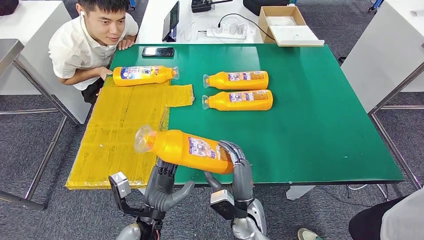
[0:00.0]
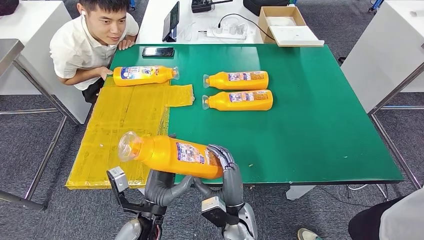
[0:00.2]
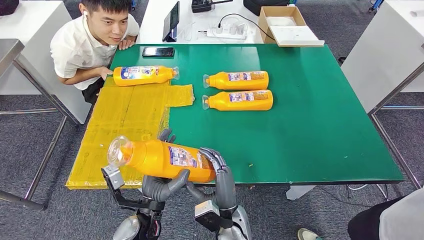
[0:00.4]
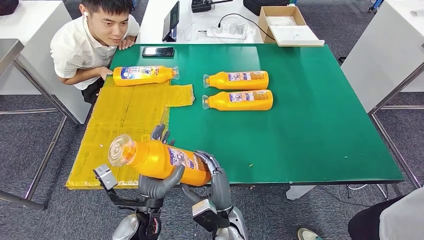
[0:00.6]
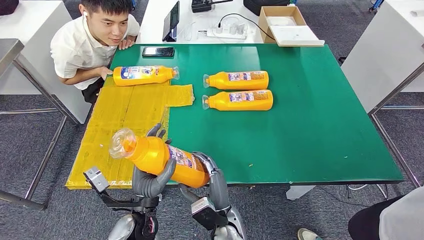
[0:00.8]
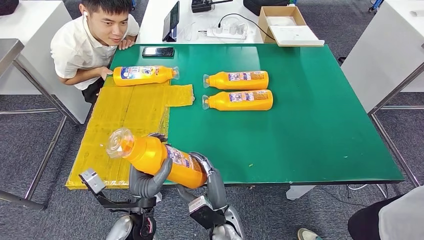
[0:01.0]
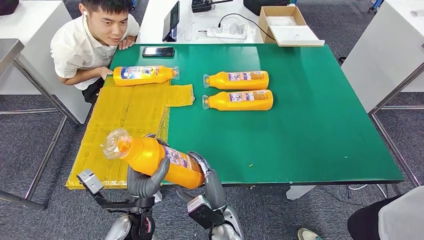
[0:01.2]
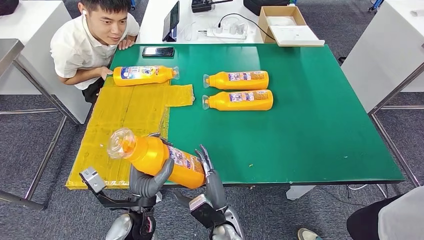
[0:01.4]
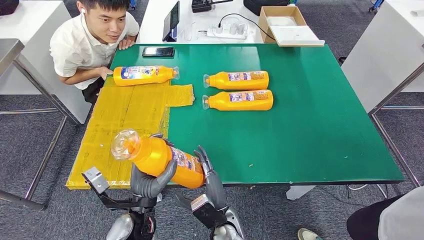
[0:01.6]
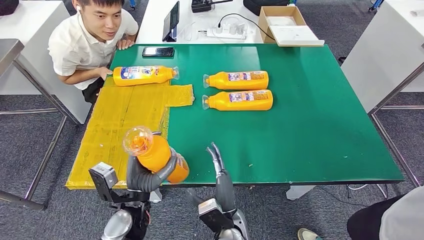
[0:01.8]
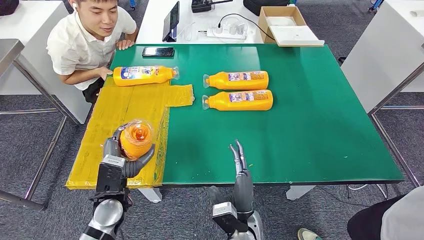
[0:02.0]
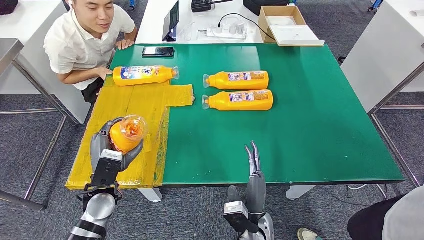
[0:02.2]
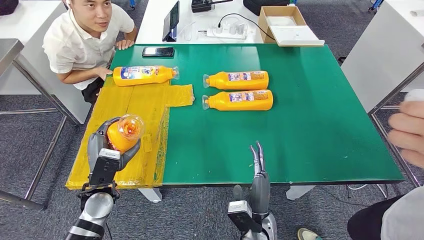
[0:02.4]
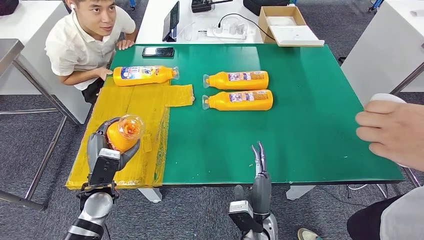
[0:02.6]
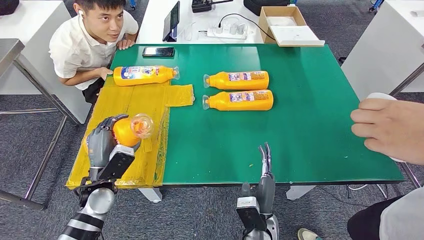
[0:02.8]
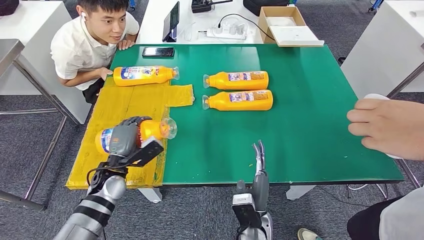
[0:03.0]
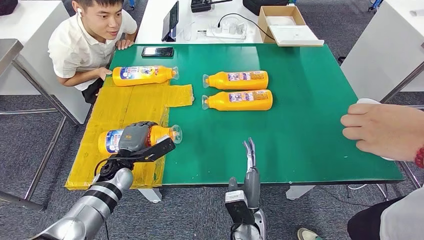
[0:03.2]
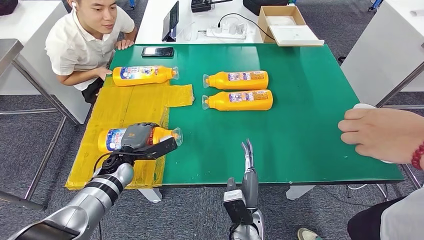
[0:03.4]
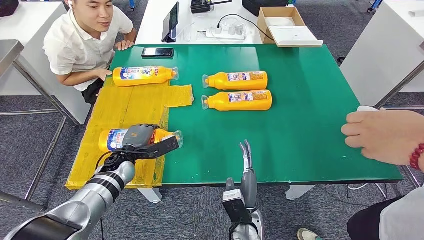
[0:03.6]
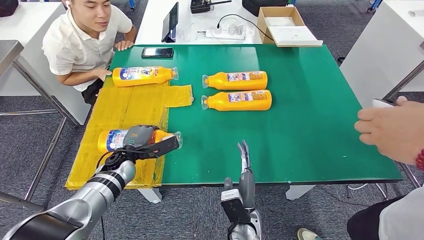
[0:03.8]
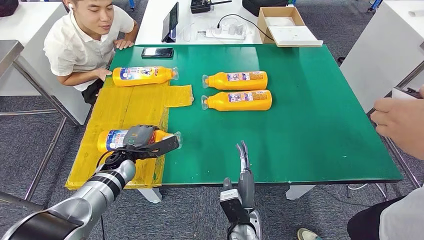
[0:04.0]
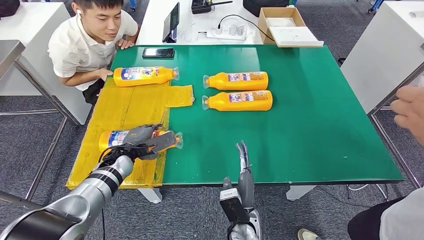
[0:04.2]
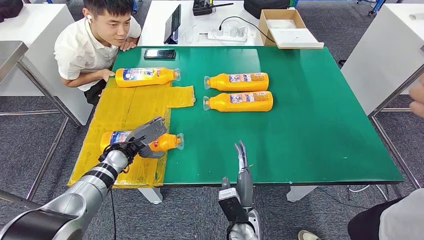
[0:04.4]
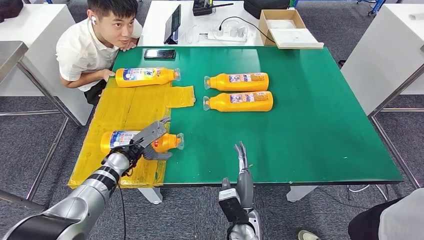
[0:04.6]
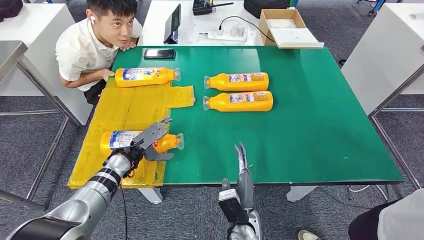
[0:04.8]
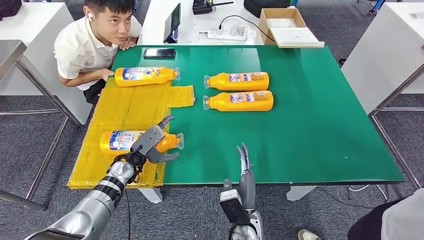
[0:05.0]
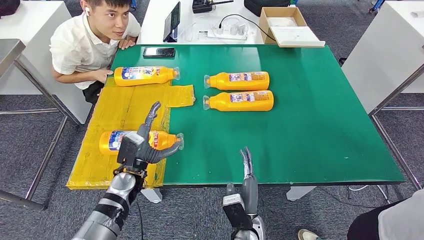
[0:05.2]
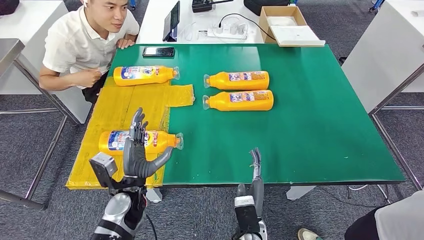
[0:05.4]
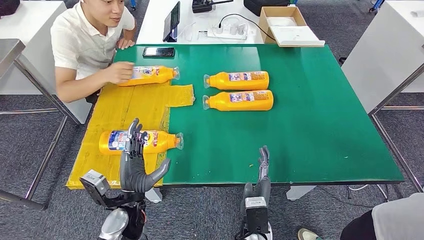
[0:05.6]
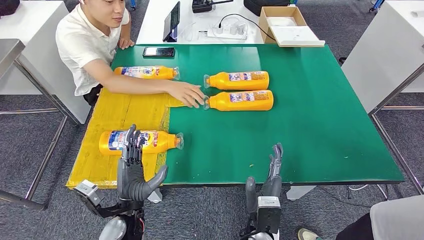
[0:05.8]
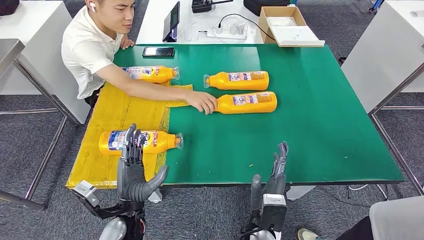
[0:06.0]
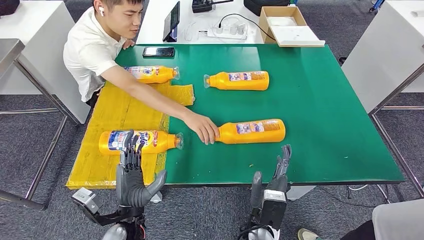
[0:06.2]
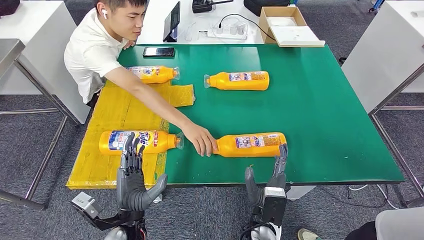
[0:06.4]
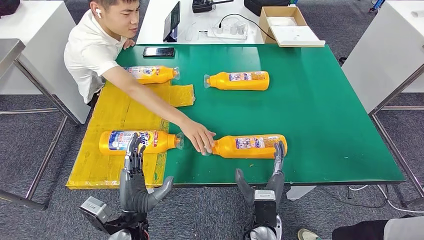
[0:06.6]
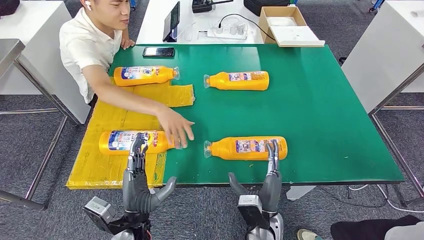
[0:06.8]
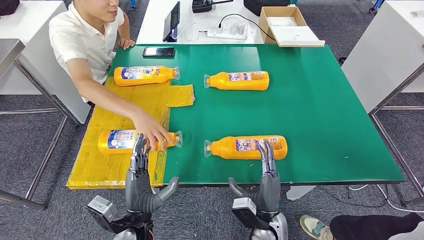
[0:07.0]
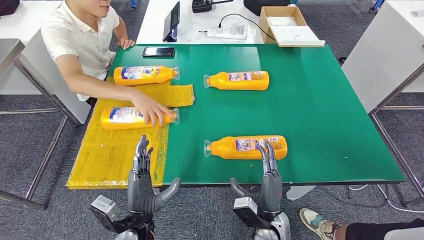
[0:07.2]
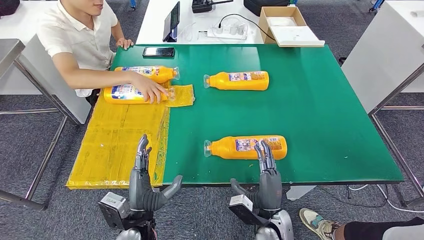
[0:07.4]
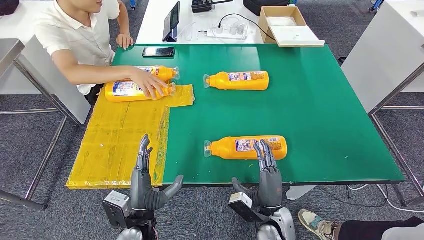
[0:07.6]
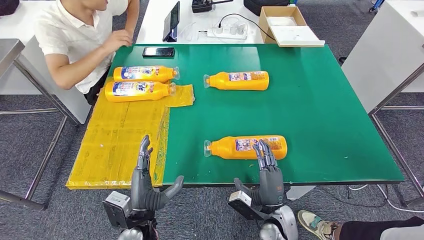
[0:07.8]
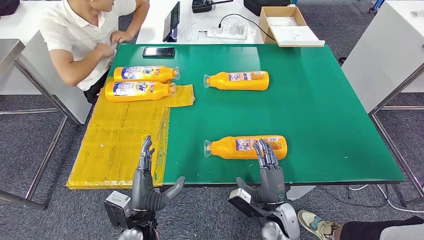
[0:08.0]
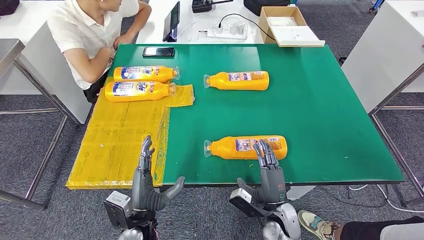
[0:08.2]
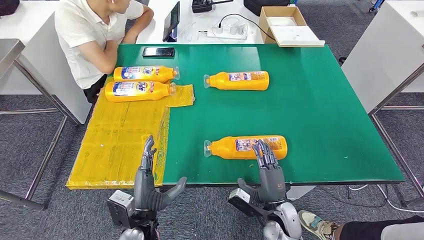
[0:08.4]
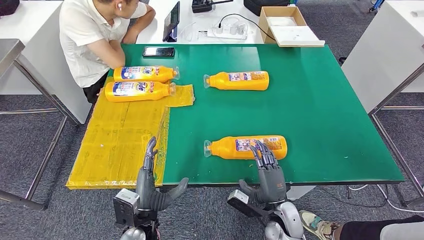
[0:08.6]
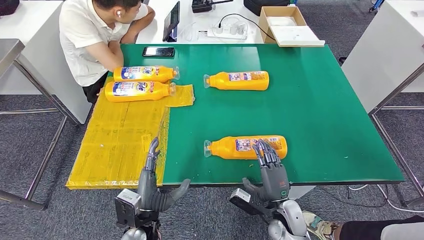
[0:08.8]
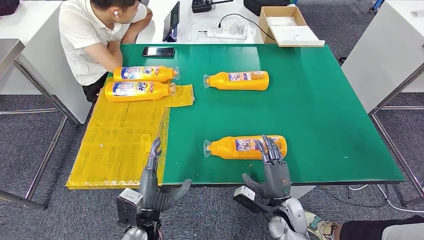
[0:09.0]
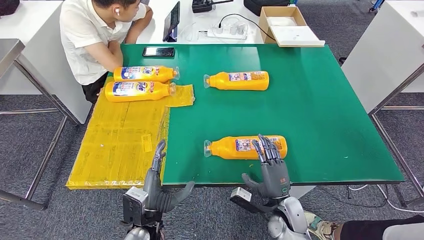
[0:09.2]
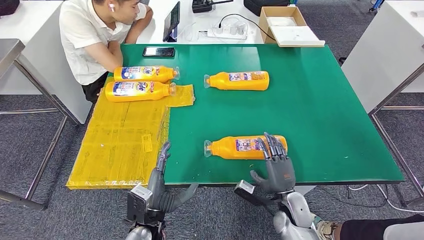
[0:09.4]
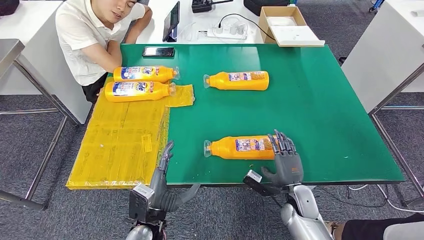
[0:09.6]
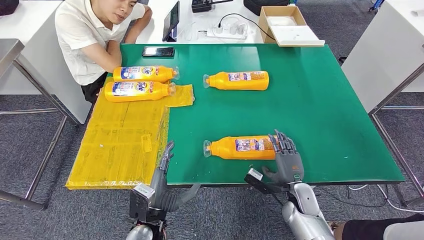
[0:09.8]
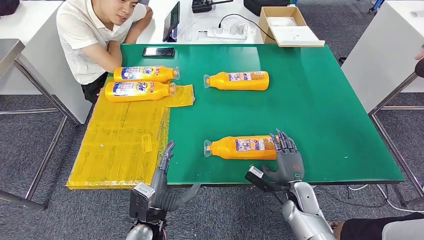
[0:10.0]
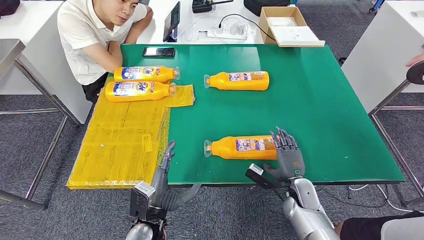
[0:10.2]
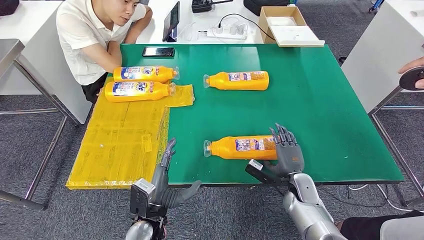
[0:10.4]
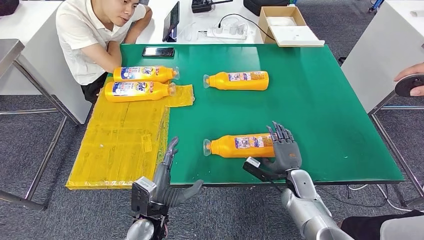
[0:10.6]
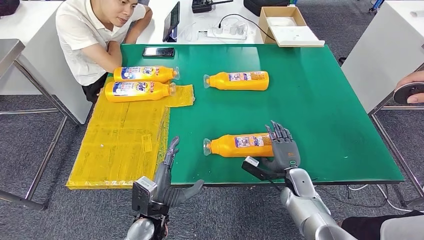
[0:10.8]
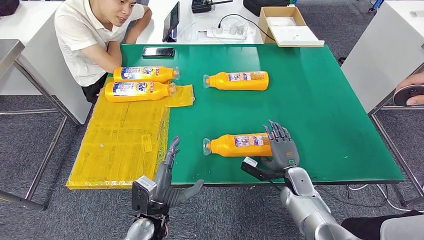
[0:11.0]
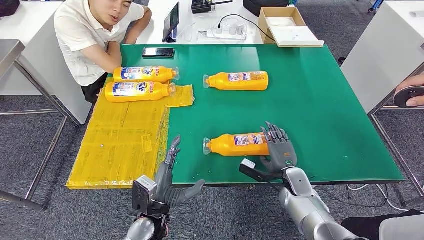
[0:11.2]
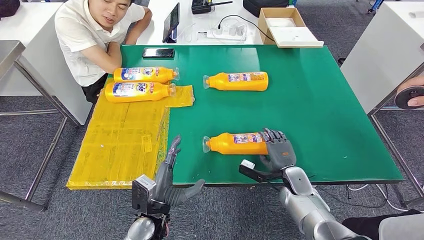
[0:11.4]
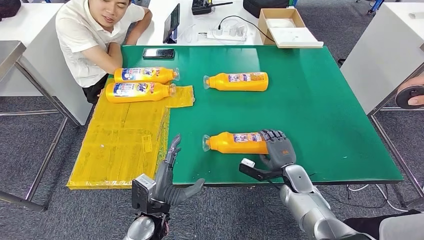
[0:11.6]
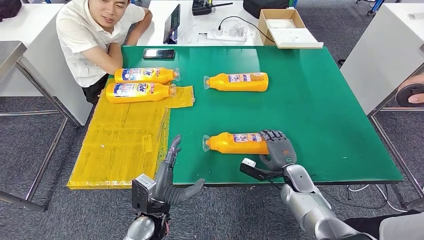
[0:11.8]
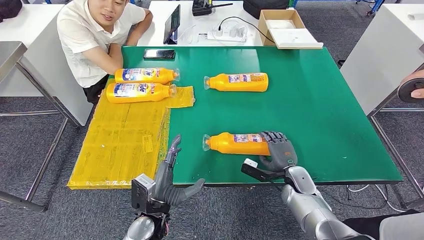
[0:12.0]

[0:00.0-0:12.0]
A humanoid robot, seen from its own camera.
Step, 0:00.0 to 0:05.0: Flip the fast-moving consumer goods bottle to the front side.
0:00.0 to 0:01.6: The right hand heads to the left, covering about 5 cm.
0:01.6 to 0:03.0: The left hand shifts about 15 cm forward and to the left. Meanwhile the right hand moves to the right, about 10 cm.
0:07.6 to 0:09.0: The hands make only small movements.
0:09.0 to 0:10.4: The right hand is displaced forward and to the right by approximately 10 cm.
0:10.4 to 0:12.0: There are only small adjustments of the hands.

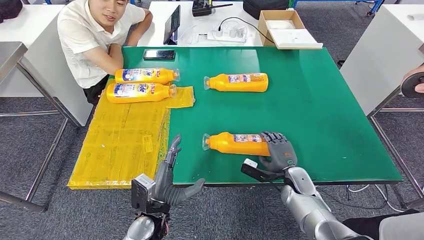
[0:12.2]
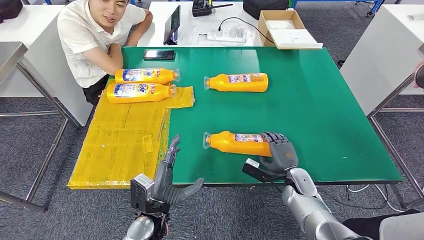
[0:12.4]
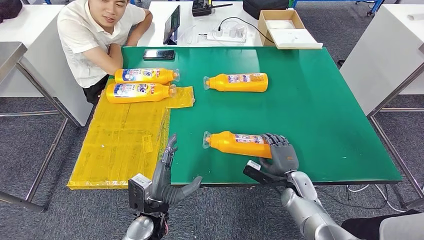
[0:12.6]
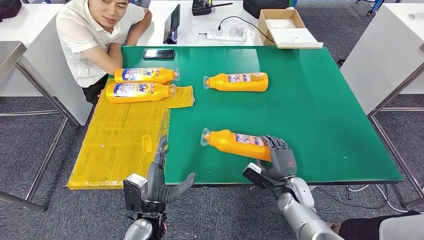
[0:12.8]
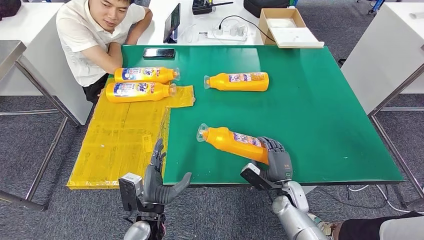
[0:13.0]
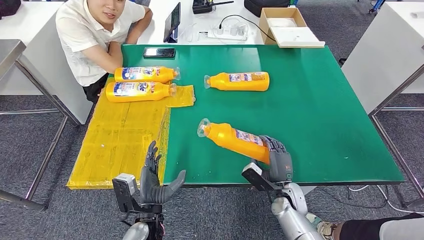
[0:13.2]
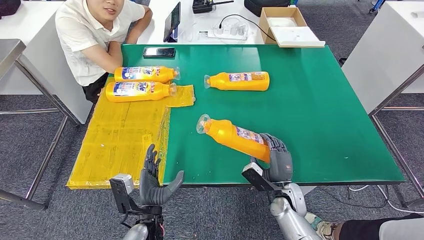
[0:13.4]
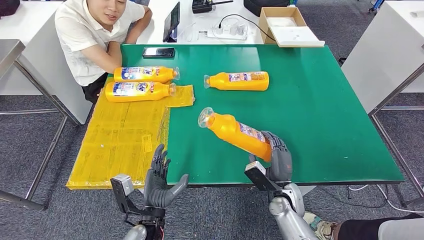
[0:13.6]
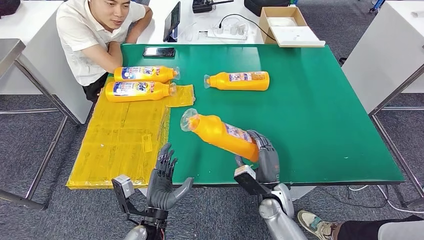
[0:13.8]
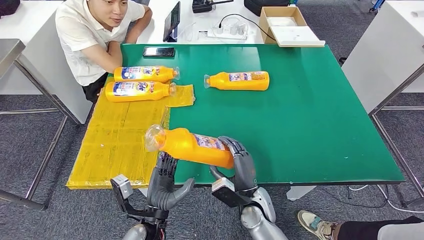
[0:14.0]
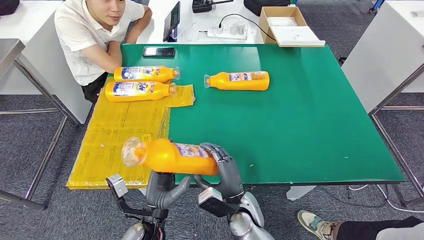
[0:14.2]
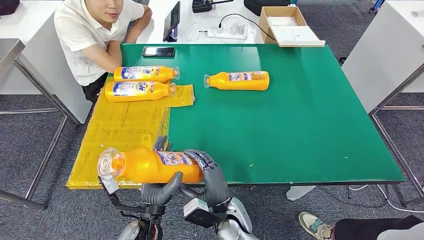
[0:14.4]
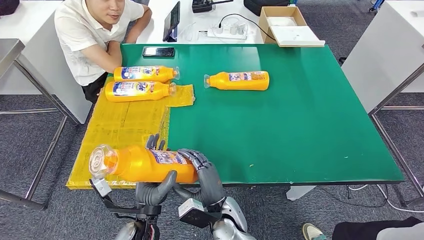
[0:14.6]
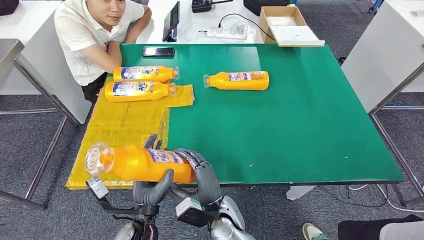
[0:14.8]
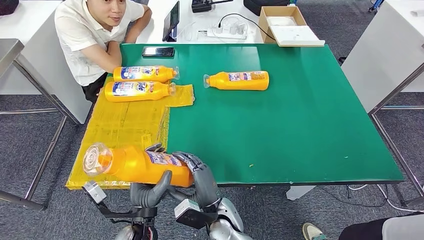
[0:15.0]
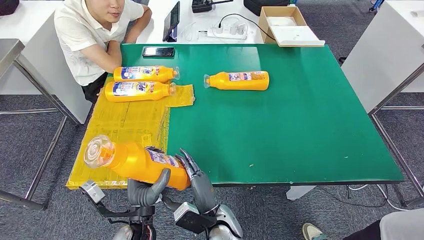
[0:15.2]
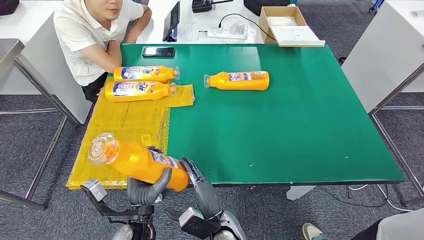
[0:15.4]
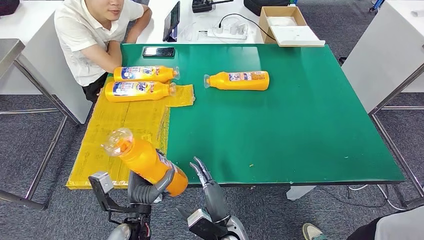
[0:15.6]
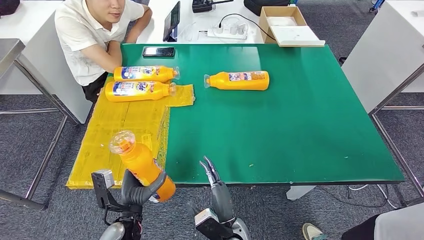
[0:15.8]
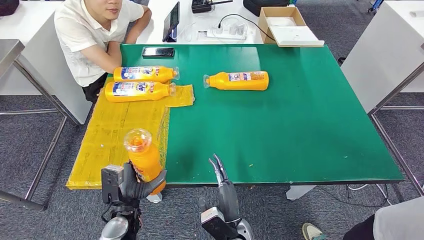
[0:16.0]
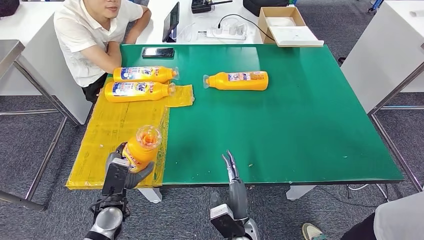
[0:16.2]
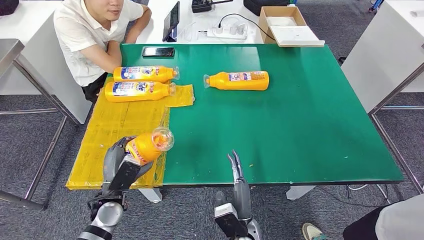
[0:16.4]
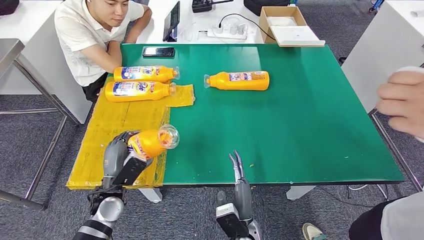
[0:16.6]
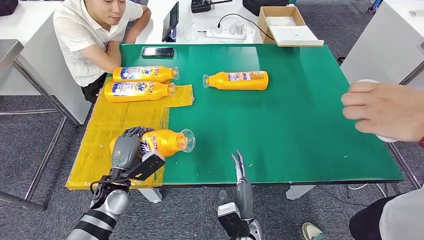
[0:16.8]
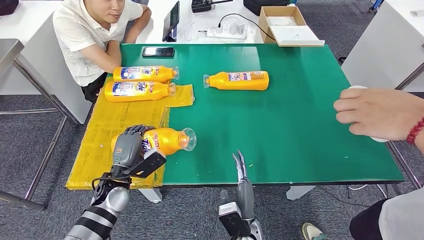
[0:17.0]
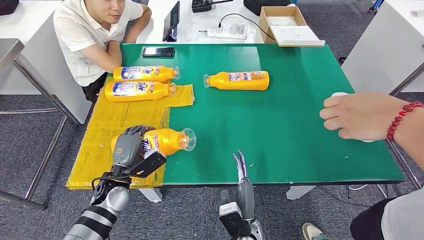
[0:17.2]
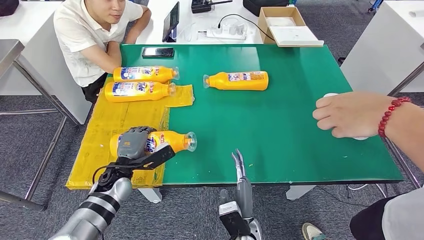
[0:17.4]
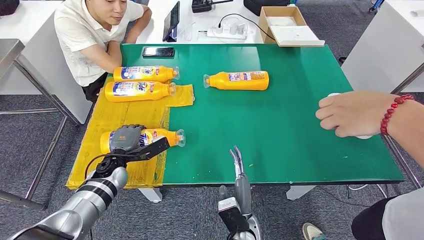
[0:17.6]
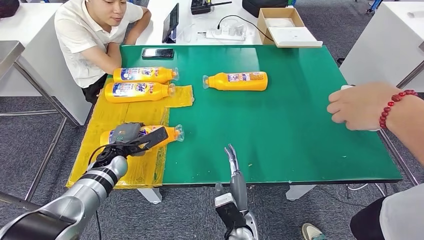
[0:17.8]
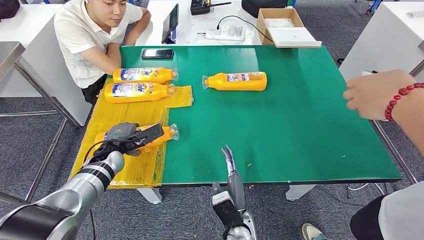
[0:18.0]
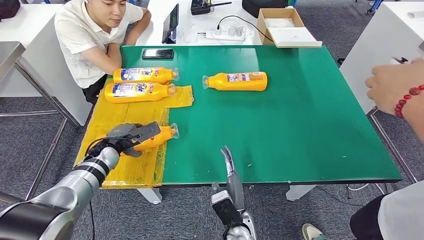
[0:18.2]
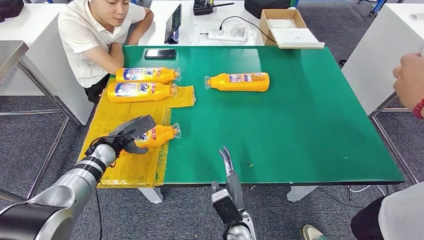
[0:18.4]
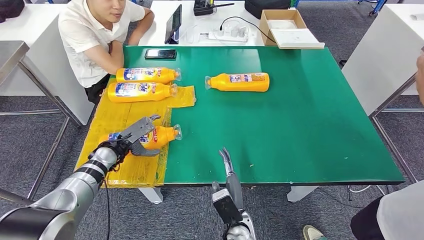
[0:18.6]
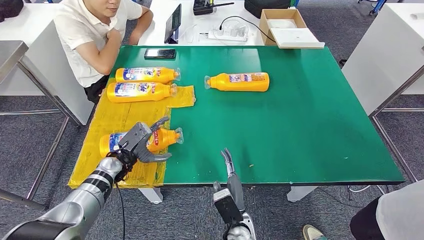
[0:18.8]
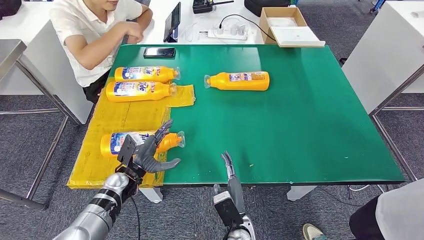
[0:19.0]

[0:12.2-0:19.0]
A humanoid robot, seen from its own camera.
0:12.2 to 0:13.6: The right hand shifts approximately 5 cm to the left.
0:13.6 to 0:15.0: The right hand goes some 20 cm to the left.
0:15.0 to 0:16.2: The right hand is displaced to the right by approximately 5 cm, while the left hand travels to the left and forward by some 10 cm.
0:16.2 to 0:17.6: The left hand is displaced forward by approximately 10 cm.
